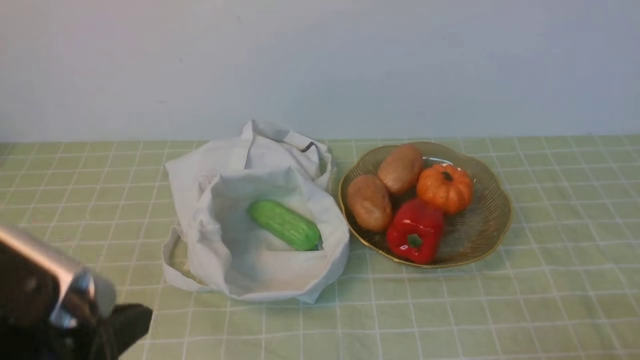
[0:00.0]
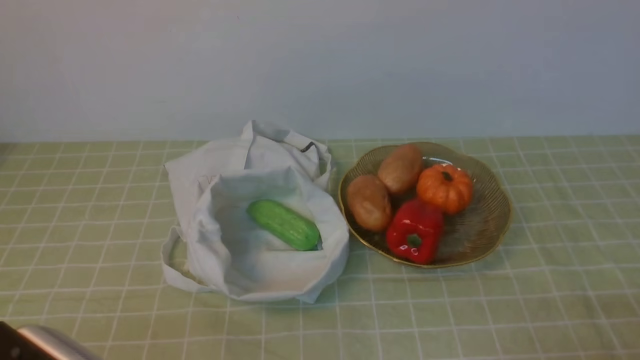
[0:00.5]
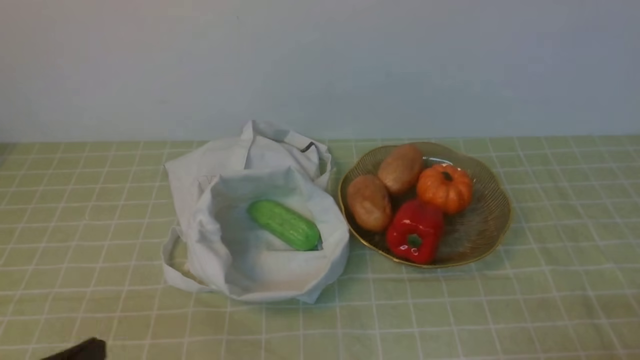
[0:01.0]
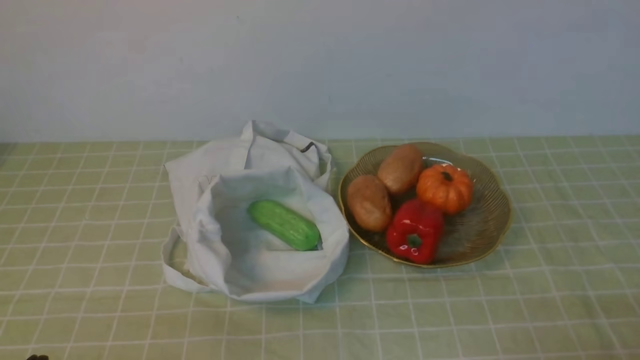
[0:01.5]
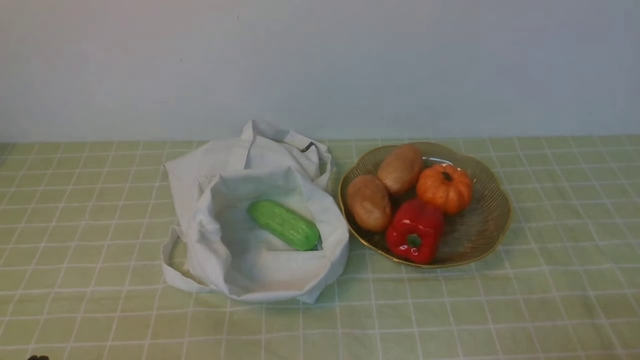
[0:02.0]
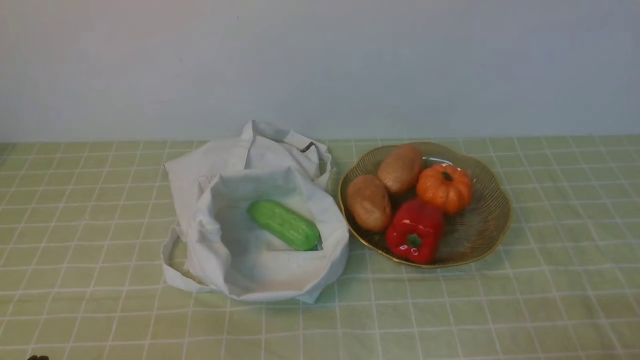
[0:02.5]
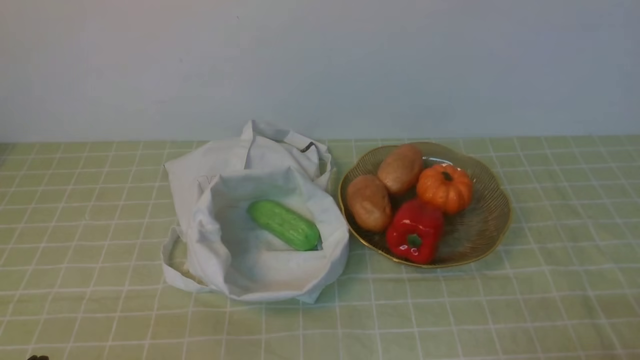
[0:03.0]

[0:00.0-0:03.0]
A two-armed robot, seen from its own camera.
Task of the whole recording: take vegetables from bag on green coffee tablecloth place on plate.
0:00.0 to 0:01.5: The left gripper heads downward and to the left, covering approximately 15 cm.
0:01.5 to 0:03.0: Both grippers stay about where they are.
